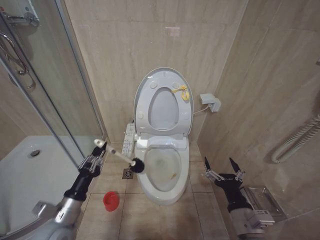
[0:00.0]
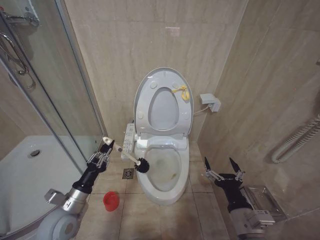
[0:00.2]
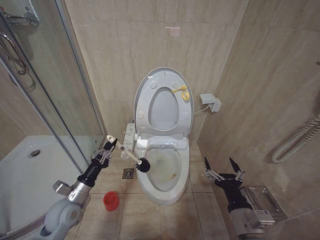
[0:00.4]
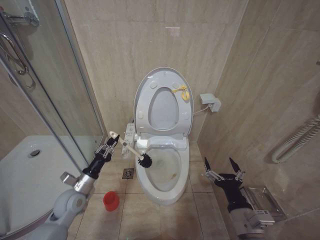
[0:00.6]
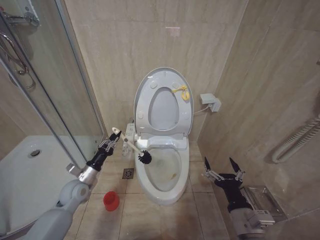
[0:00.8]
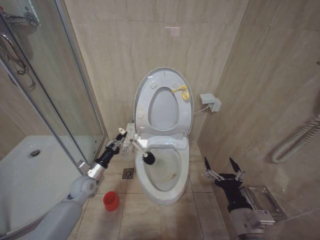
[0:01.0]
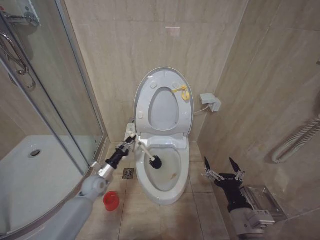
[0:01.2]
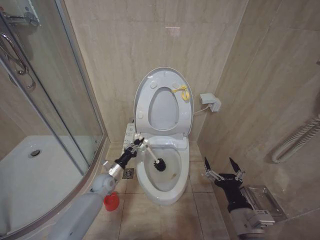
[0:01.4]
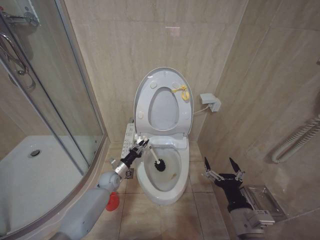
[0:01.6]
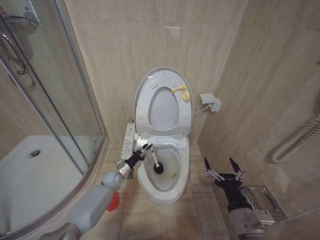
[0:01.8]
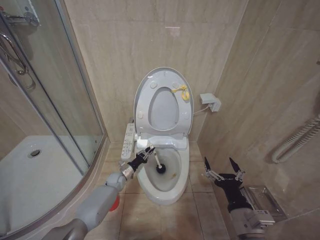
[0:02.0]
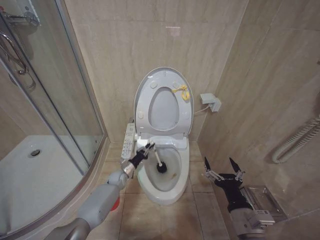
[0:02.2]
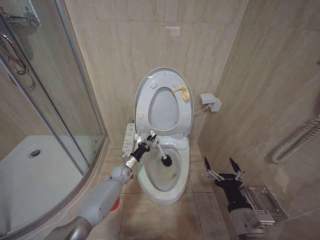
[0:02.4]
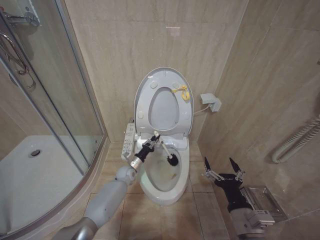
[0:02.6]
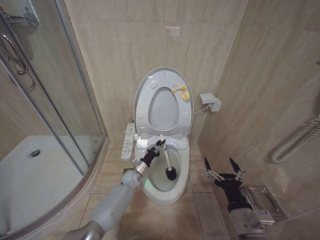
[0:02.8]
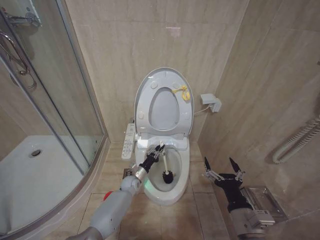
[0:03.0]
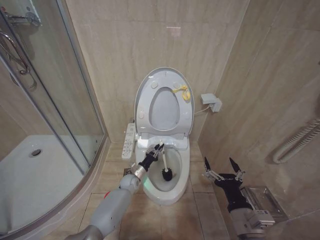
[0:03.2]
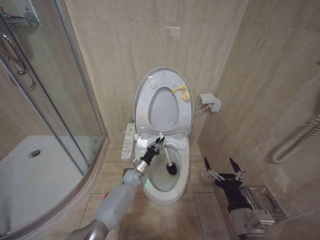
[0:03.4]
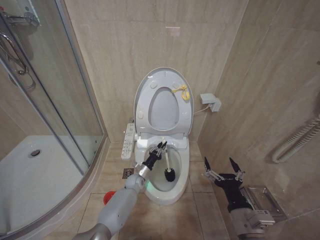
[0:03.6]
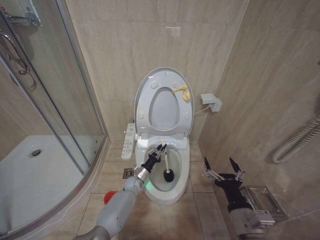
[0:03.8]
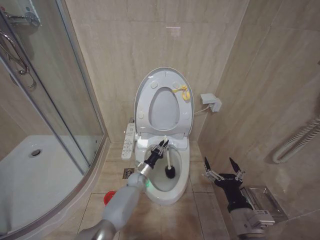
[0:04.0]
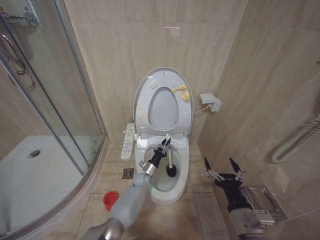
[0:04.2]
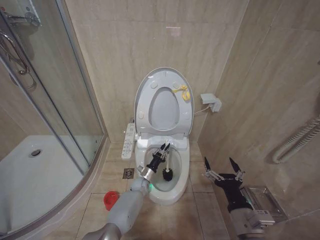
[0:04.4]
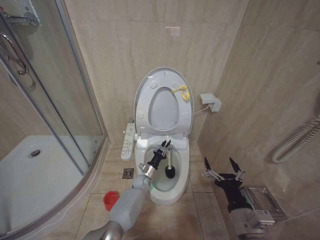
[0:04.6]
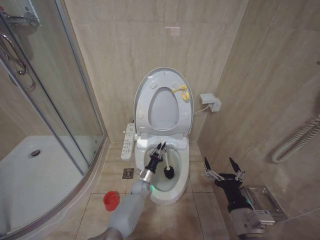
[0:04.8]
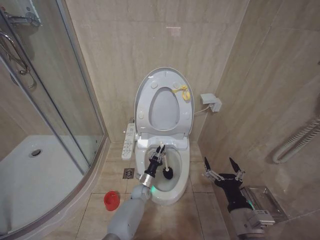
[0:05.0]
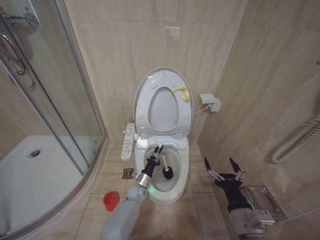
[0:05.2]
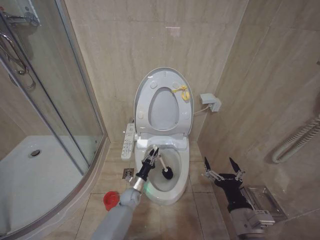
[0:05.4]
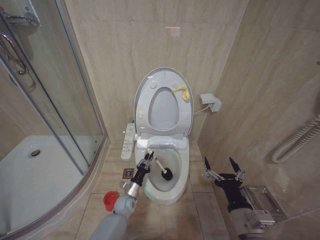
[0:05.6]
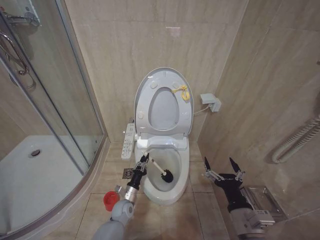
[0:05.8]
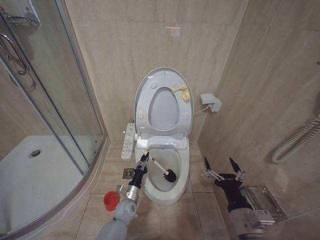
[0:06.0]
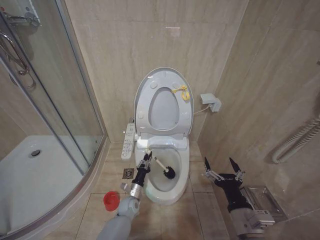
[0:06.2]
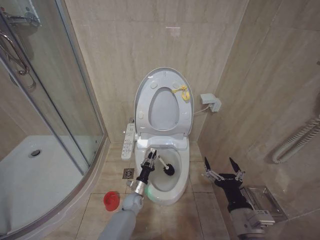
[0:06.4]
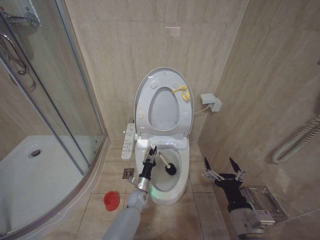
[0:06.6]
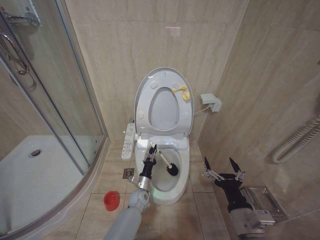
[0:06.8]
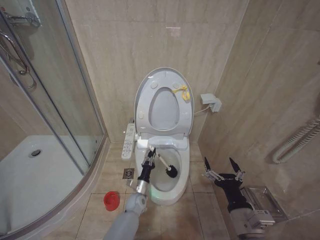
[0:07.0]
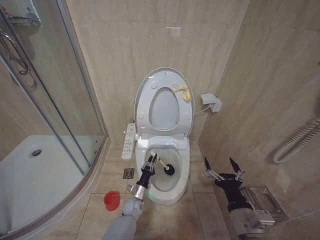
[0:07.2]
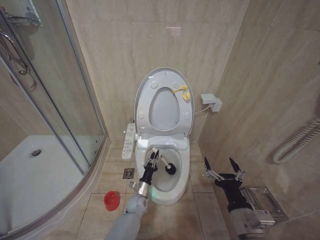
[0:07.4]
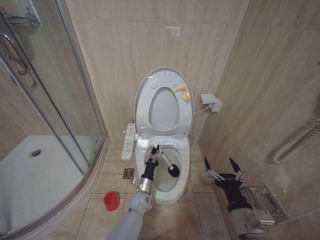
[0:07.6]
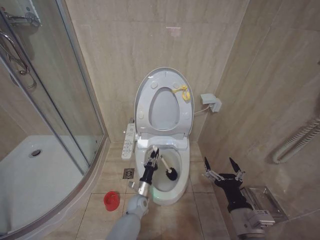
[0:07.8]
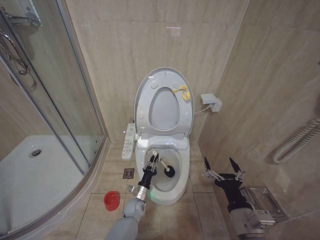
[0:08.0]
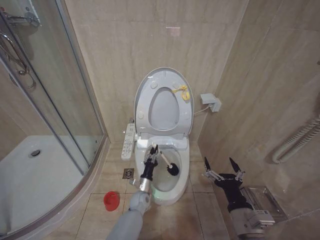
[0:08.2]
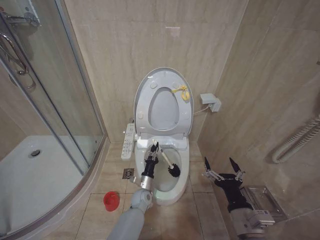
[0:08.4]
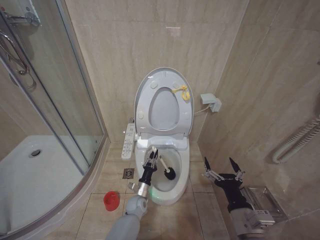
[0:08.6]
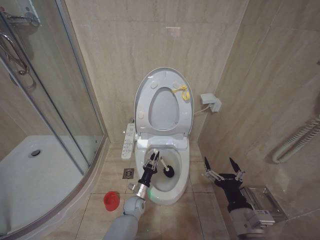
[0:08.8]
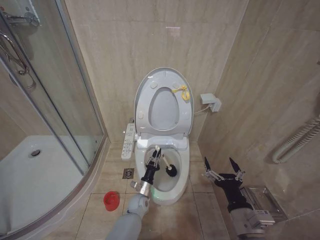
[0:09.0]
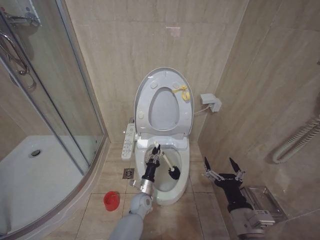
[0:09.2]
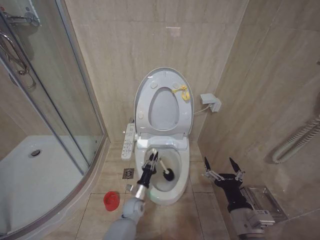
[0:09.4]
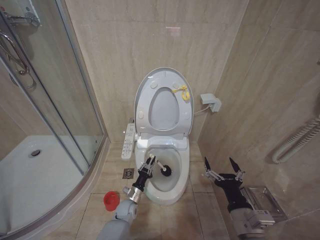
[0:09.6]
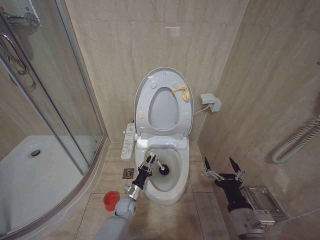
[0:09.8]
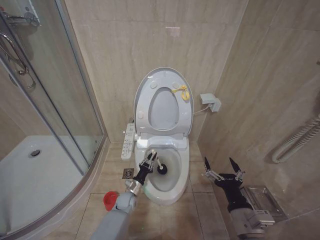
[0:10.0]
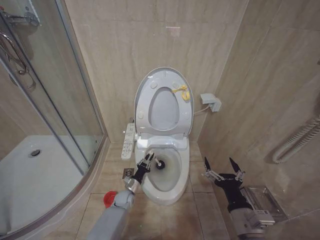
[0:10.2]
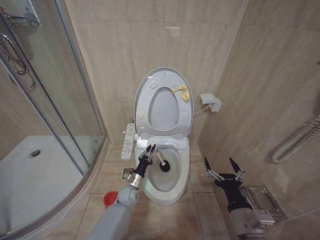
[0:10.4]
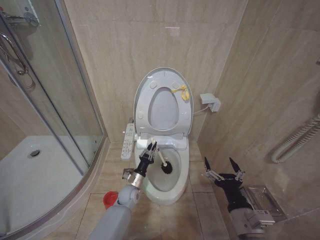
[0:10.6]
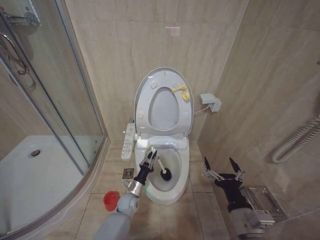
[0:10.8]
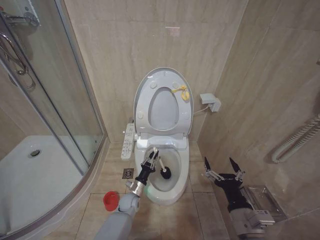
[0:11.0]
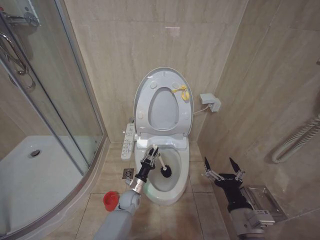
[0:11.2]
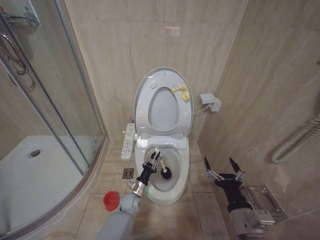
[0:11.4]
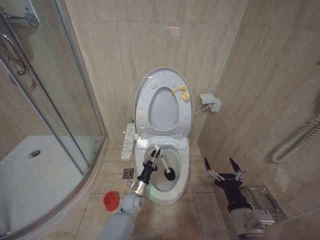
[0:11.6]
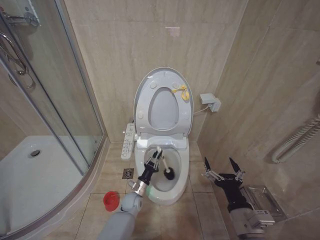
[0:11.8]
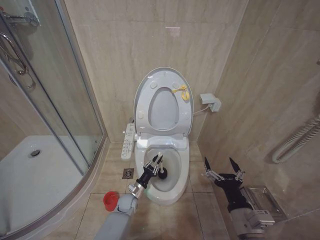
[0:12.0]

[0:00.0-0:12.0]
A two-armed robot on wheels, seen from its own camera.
Task of the whole recording: Open the toilet lid, clean the toilet bowl with a toilet brush, close the toilet lid, and flush.
0:00.0 to 0:01.6: The left gripper moves forward and downward, roughly 30 cm.
0:01.6 to 0:03.0: The left gripper is displaced to the right by some 10 cm.
0:03.0 to 0:04.4: The left gripper moves to the right, roughly 5 cm.
0:04.4 to 0:06.0: The left gripper travels backward and to the left by approximately 15 cm.
0:06.0 to 0:07.6: The left gripper moves to the right, roughly 5 cm.
0:09.0 to 0:10.4: The left gripper heads to the left, covering some 5 cm.
0:10.4 to 0:12.0: The grippers move only a little.

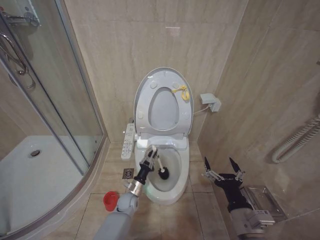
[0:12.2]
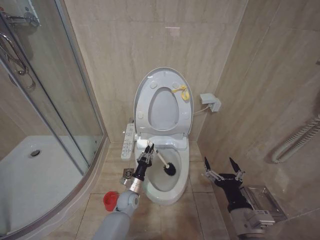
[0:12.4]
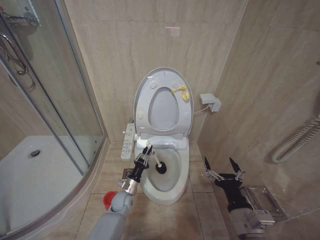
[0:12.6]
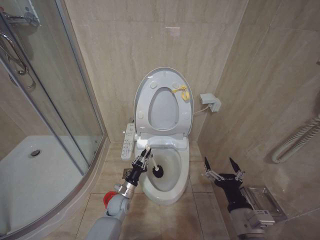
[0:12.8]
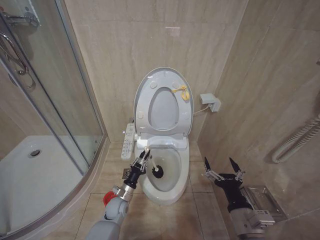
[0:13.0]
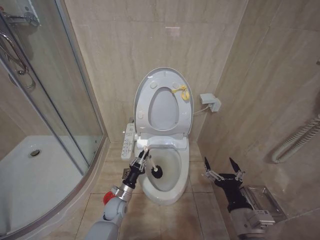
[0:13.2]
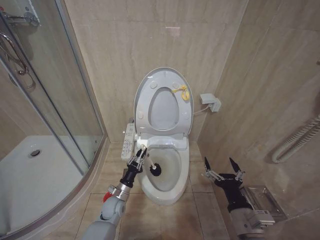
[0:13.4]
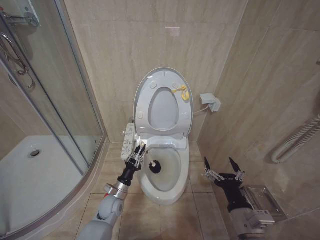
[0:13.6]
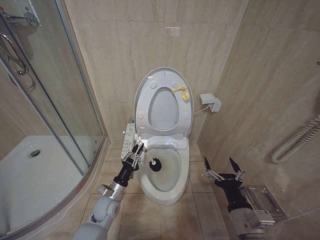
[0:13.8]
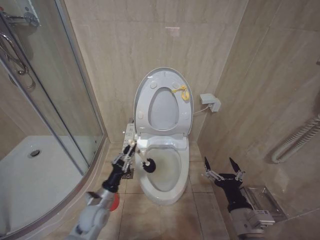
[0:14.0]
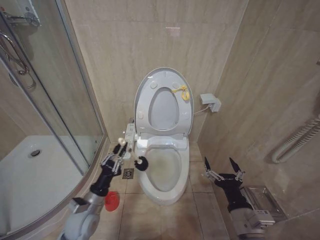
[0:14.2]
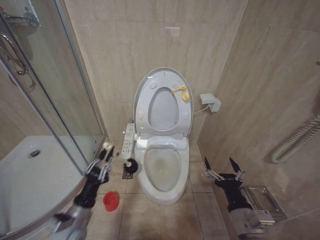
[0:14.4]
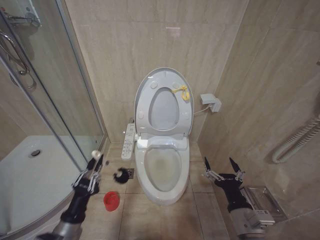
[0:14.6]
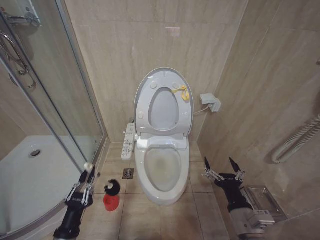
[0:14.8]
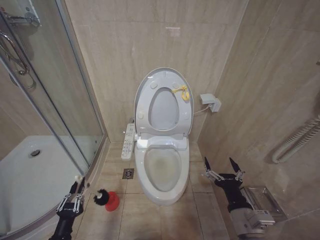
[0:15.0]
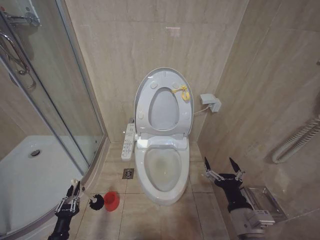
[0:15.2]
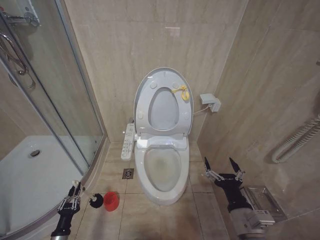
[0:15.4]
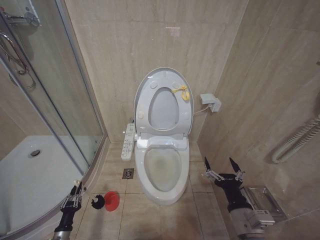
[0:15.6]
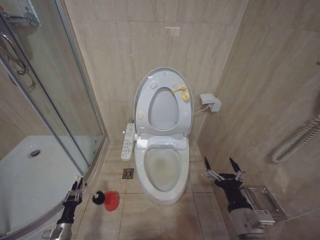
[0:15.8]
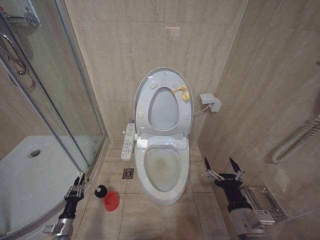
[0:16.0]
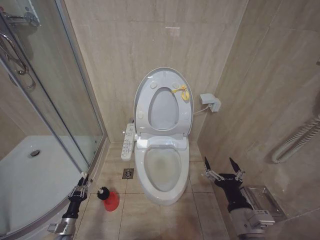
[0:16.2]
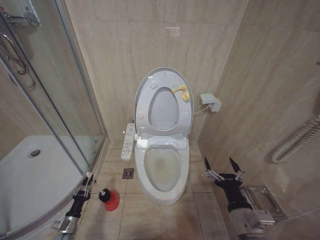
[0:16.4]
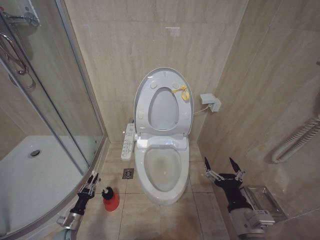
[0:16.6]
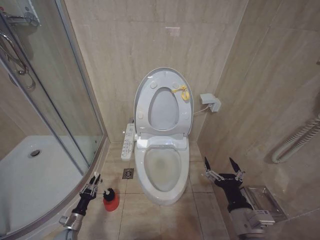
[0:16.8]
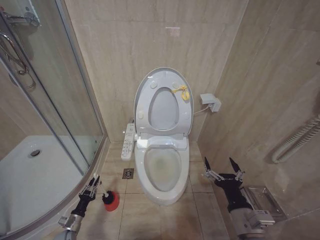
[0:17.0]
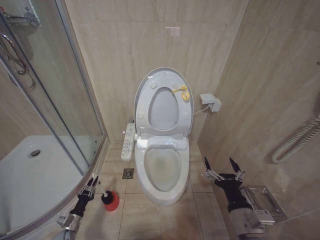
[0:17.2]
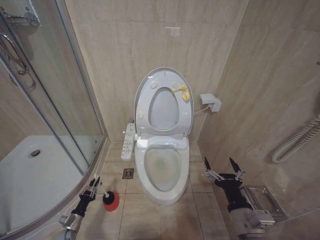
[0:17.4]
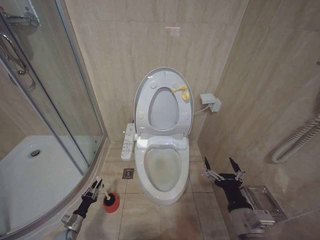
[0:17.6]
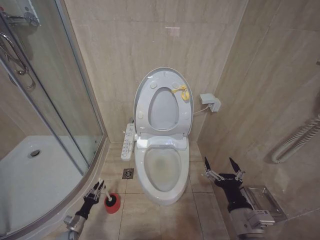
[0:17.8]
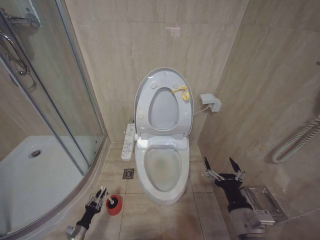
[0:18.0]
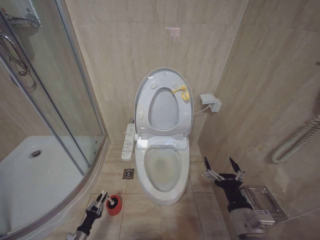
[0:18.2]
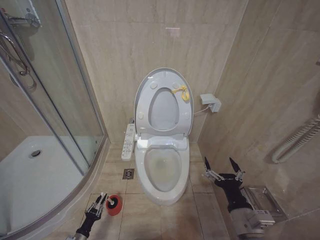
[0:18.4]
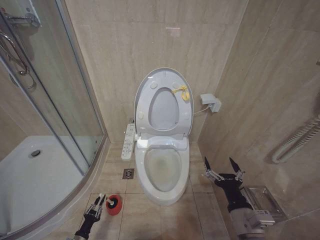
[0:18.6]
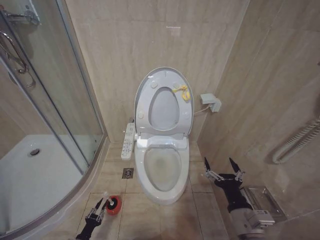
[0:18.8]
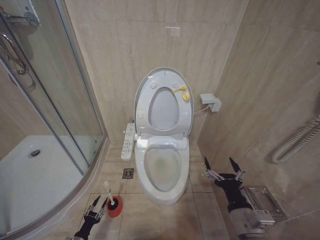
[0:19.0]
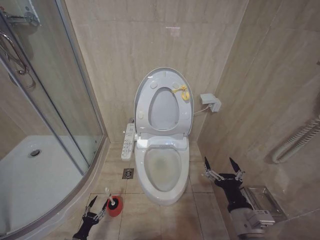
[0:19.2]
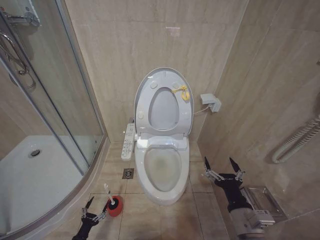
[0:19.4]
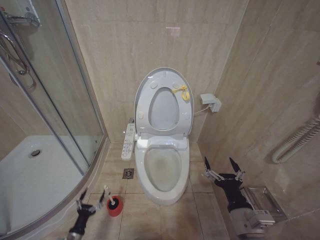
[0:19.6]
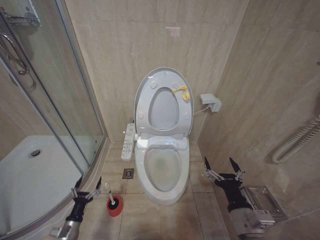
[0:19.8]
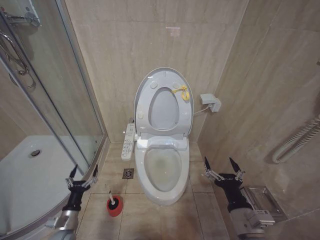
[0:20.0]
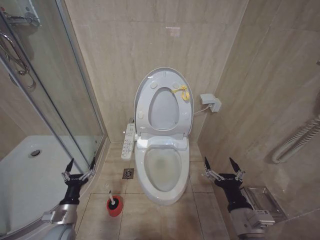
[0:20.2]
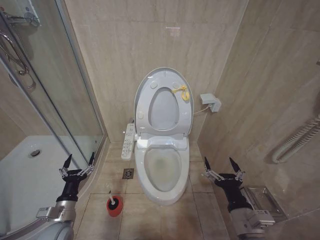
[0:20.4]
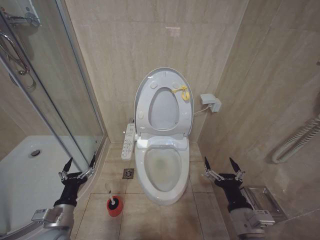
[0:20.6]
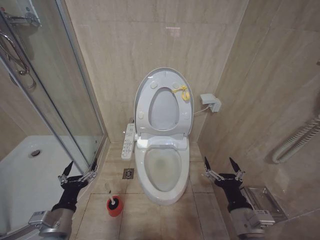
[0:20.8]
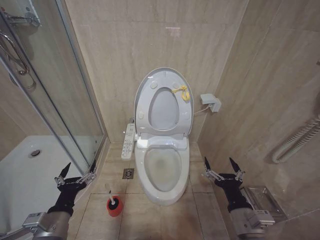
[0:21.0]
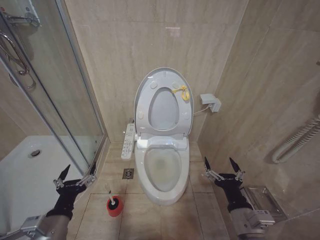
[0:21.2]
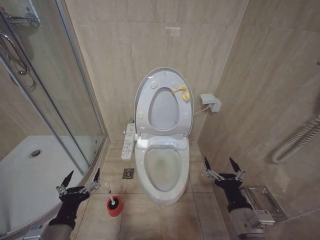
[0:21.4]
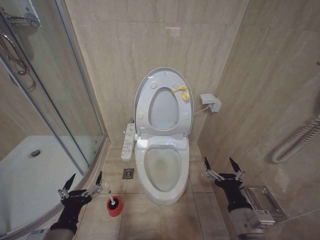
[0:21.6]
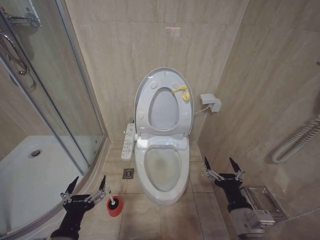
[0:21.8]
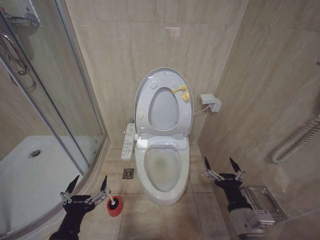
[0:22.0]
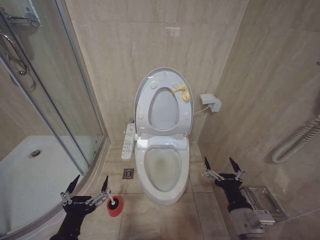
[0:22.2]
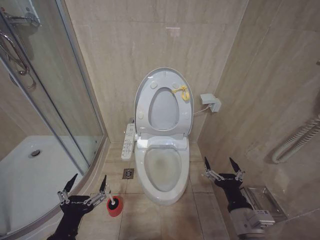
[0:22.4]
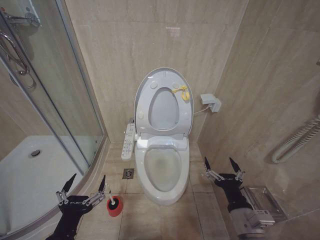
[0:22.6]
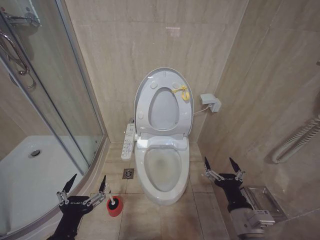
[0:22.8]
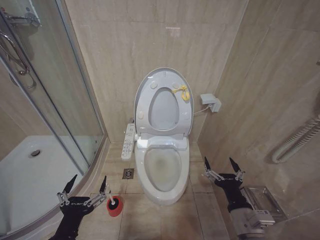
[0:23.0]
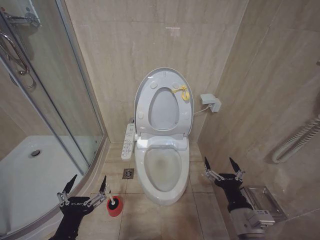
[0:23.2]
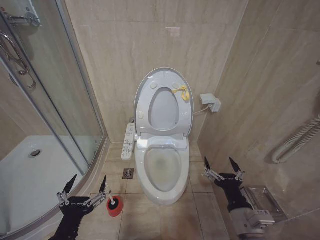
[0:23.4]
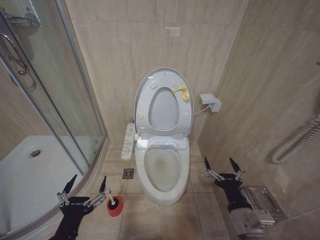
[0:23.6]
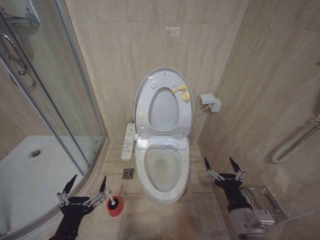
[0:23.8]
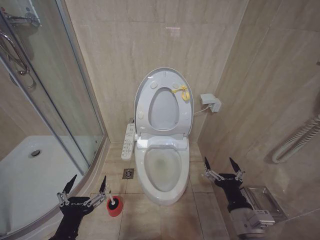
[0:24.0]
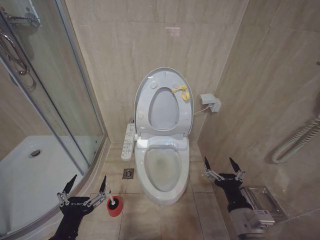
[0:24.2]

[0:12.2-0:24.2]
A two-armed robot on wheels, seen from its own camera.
Task of the whole recording: Open the toilet lid, clean the toilet bowl with a toilet brush, close the toilet lid, and flush.
0:12.2 to 0:13.8: The left gripper shifts approximately 10 cm upward and to the left.
0:13.8 to 0:15.2: The left gripper shifts some 25 cm backward and to the left.
0:15.2 to 0:16.6: The left gripper heads forward and downward, covering about 15 cm.
0:16.6 to 0:18.2: The left gripper goes some 5 cm downward.
0:18.2 to 0:19.8: The left gripper is displaced upward by some 10 cm, and opens up.
0:19.8 to 0:21.2: The left gripper moves upward, approximately 30 cm.
0:21.2 to 0:22.6: The left gripper moves backward, some 5 cm.
0:22.6 to 0:24.2: The two grippers keep their place.
